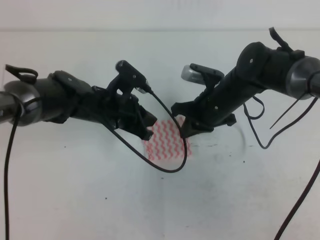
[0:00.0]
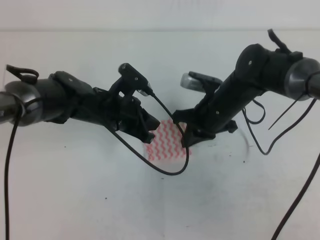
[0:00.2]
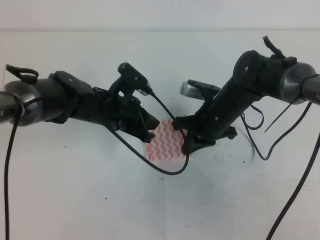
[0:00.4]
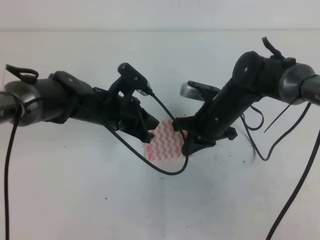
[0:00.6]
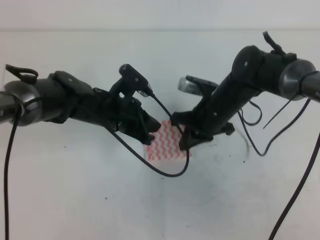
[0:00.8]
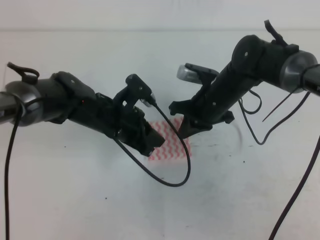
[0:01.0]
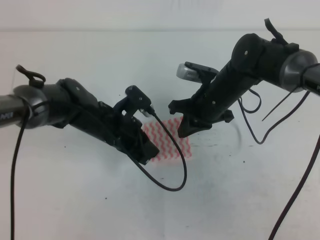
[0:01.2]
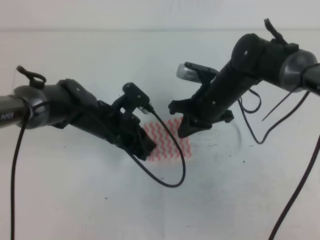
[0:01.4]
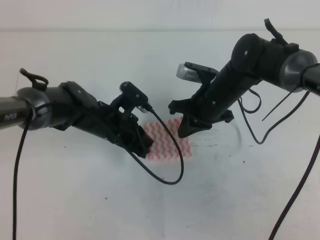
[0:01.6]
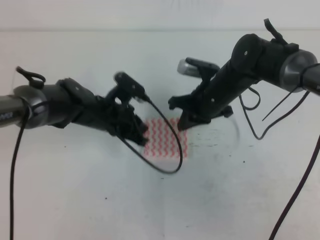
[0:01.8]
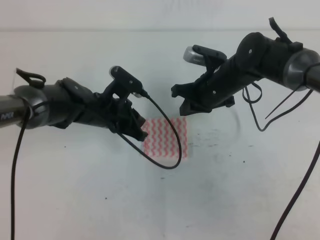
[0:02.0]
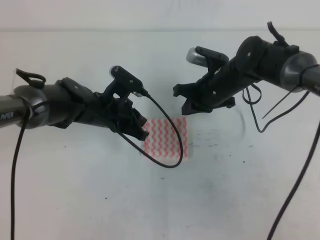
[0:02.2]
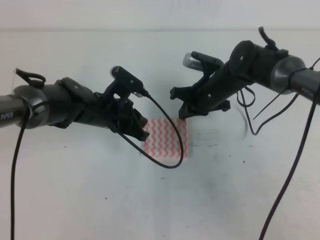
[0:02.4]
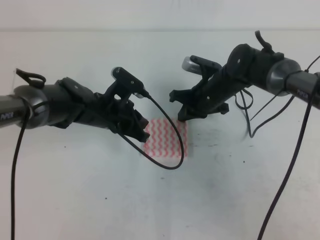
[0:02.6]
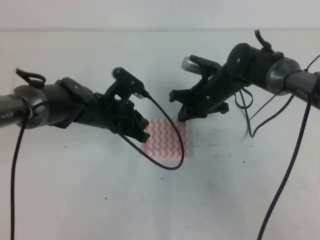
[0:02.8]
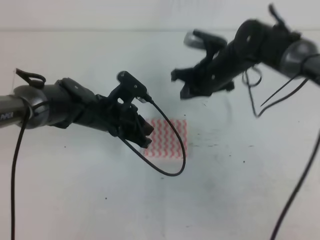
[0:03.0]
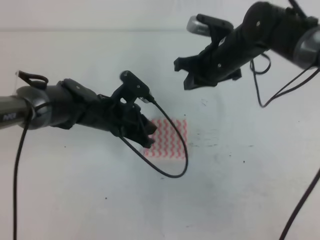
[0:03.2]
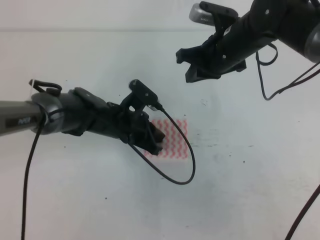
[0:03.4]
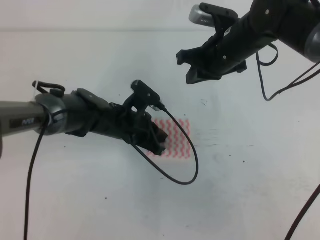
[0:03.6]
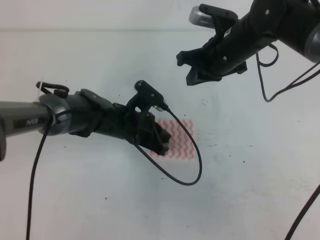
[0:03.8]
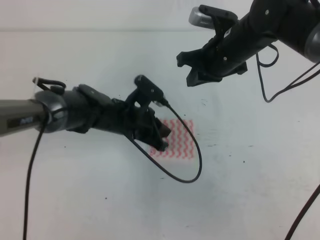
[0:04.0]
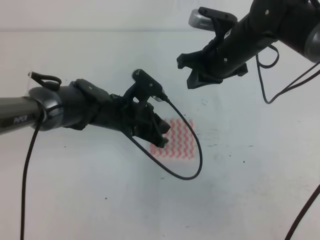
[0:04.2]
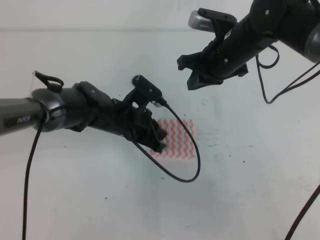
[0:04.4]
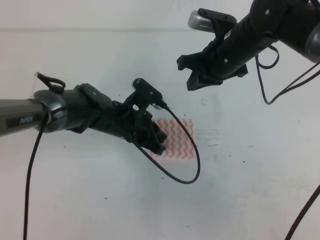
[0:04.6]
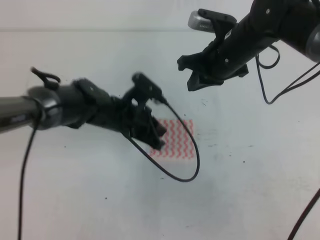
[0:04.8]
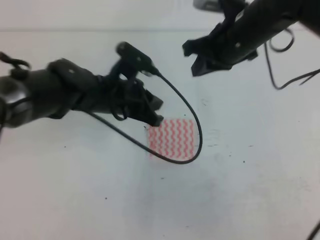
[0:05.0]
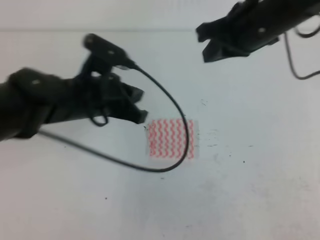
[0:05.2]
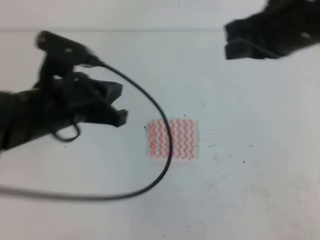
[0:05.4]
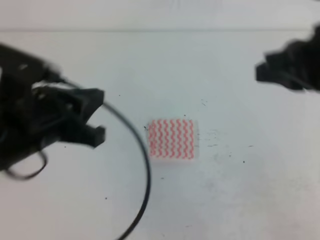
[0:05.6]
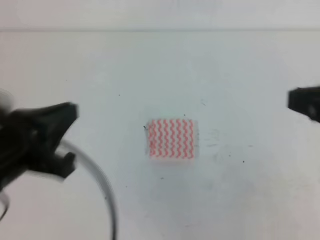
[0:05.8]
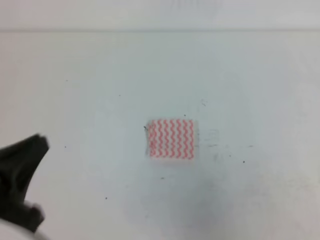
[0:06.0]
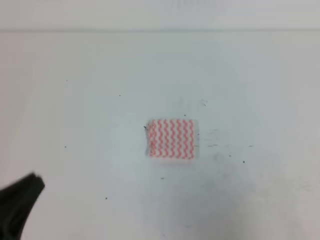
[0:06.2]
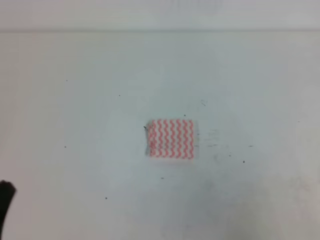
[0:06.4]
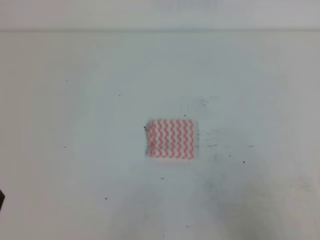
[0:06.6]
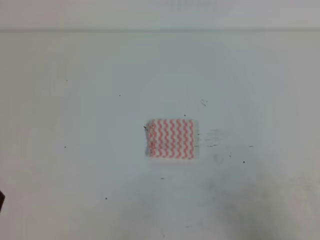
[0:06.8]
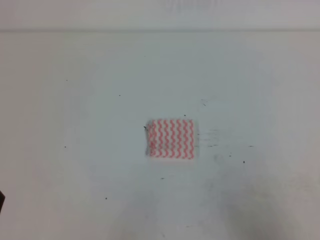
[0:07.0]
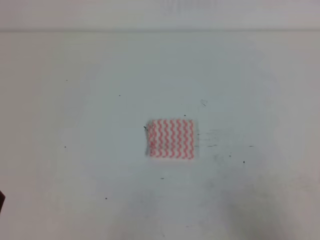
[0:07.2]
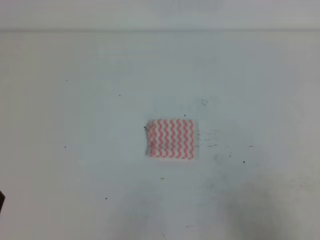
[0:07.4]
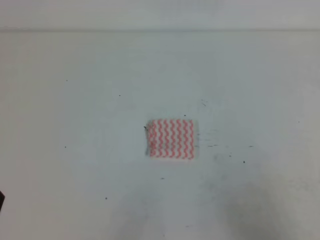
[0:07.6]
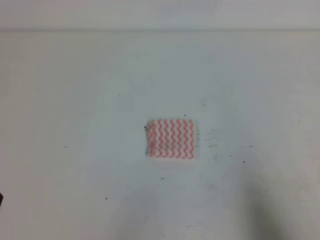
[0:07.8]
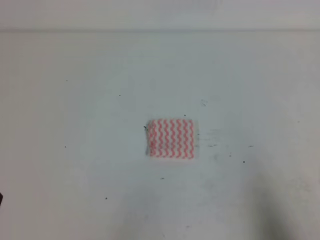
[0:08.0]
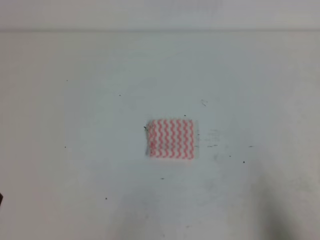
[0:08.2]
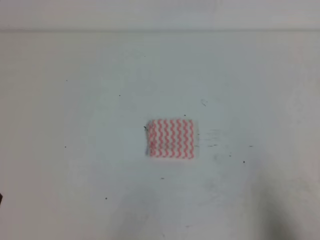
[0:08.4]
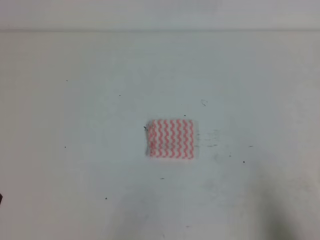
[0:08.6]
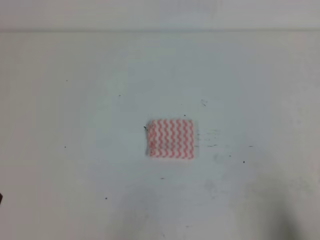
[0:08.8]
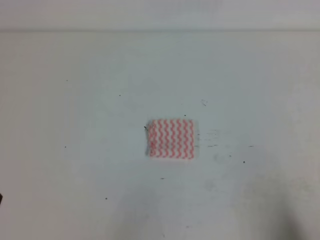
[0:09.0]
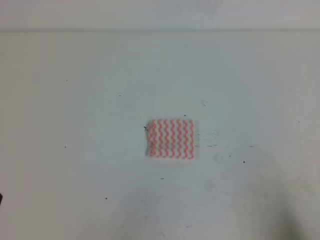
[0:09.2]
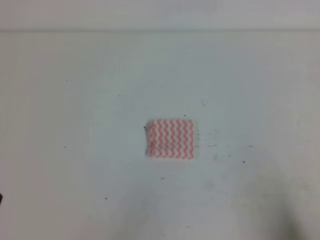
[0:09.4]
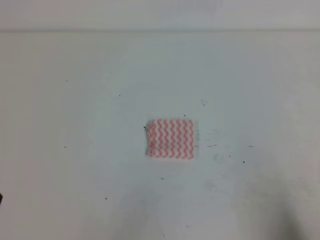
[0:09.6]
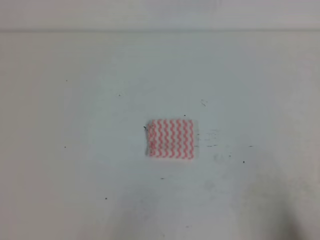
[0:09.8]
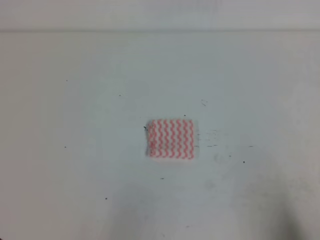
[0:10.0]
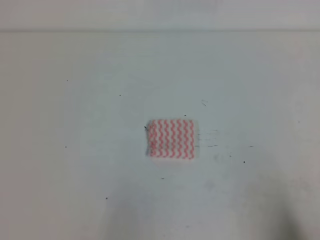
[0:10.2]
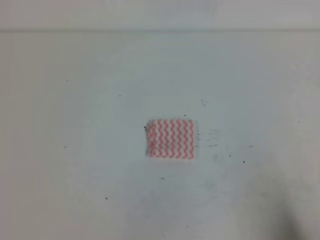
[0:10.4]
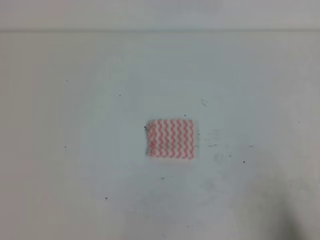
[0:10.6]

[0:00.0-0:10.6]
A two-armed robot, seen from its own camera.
0:00.0 to 0:01.6: The grippers stay close to where they were, moving slightly.
0:01.6 to 0:03.0: The grippers move only a little.
0:03.0 to 0:04.6: The right gripper travels upward by some 5 cm.
0:04.6 to 0:06.0: The right gripper travels backward and to the right by some 30 cm, while the left gripper heads backward, to the left and upward, covering roughly 30 cm.
0:06.0 to 0:07.6: The left gripper goes about 10 cm downward and to the left; the right gripper moves downward, about 15 cm.
0:07.6 to 0:09.0: The right gripper heads downward, covering about 5 cm.

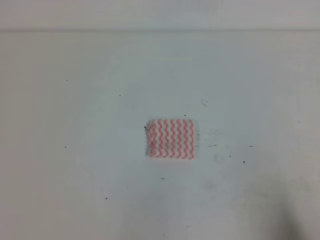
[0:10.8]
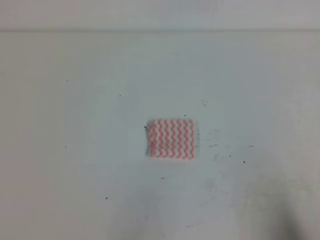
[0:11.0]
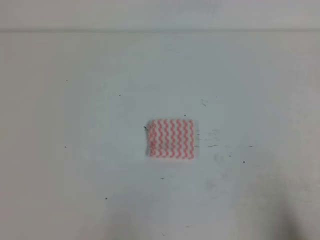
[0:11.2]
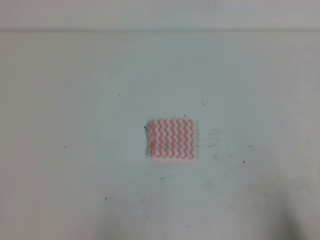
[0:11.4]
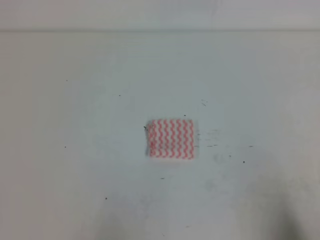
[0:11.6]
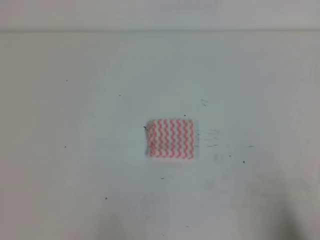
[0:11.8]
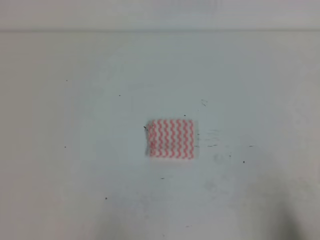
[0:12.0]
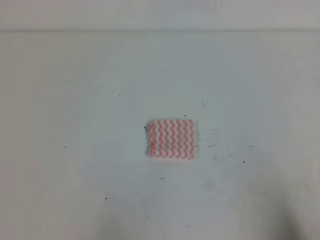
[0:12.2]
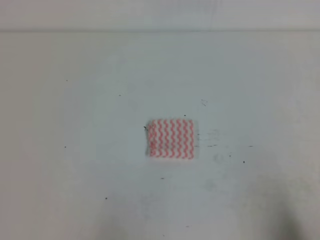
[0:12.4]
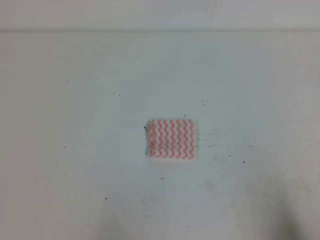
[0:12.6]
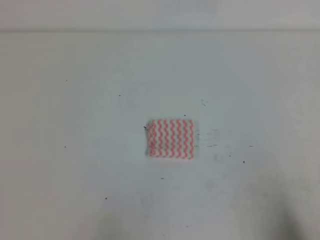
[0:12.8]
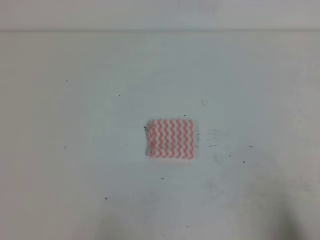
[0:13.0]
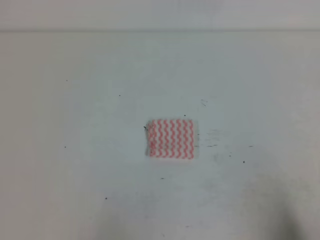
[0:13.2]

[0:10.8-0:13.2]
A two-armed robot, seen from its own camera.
0:12.0 to 0:13.2: Both grippers stay put.
